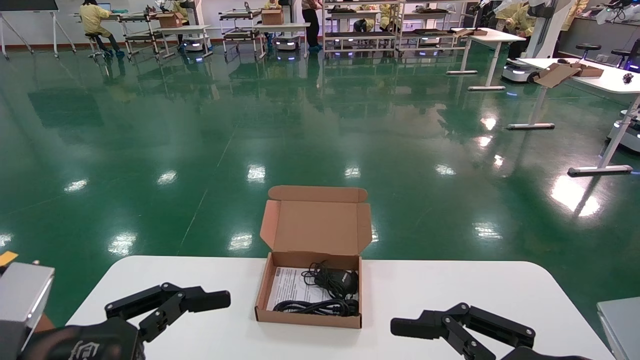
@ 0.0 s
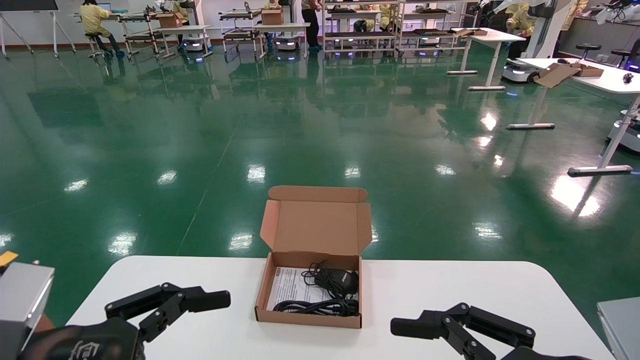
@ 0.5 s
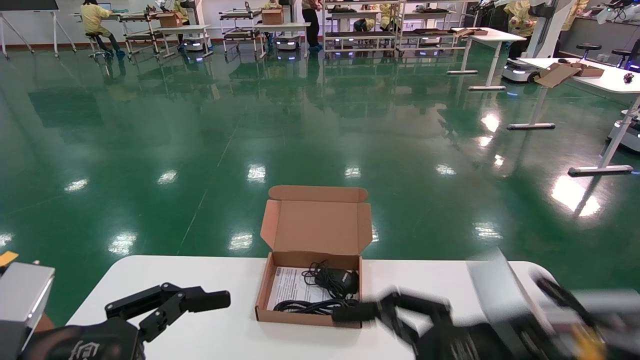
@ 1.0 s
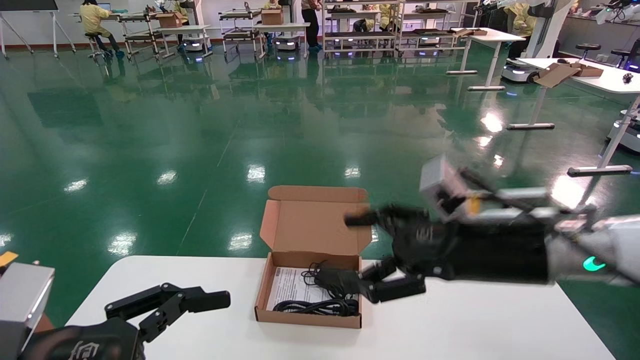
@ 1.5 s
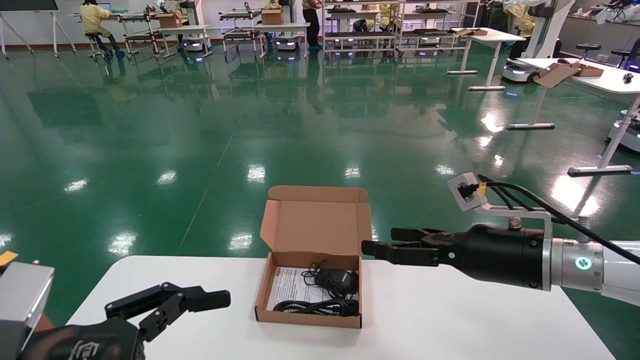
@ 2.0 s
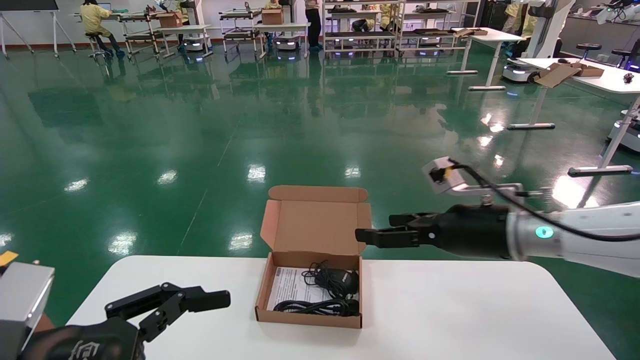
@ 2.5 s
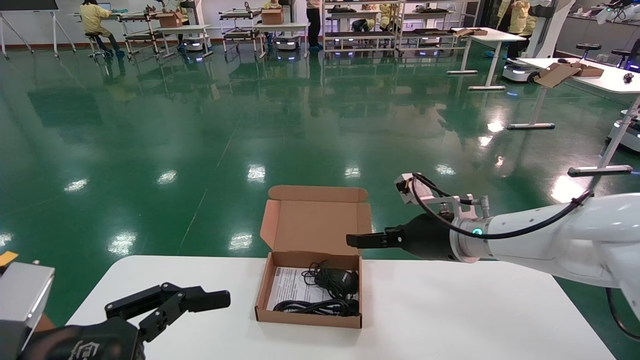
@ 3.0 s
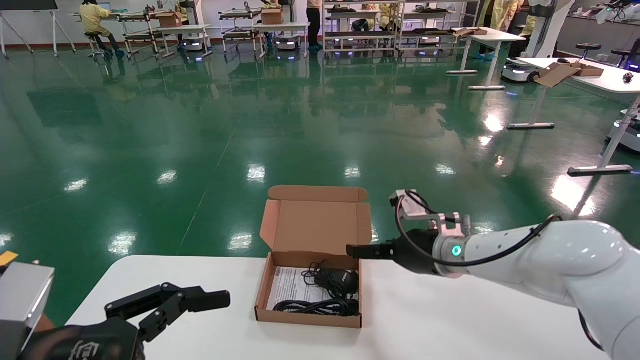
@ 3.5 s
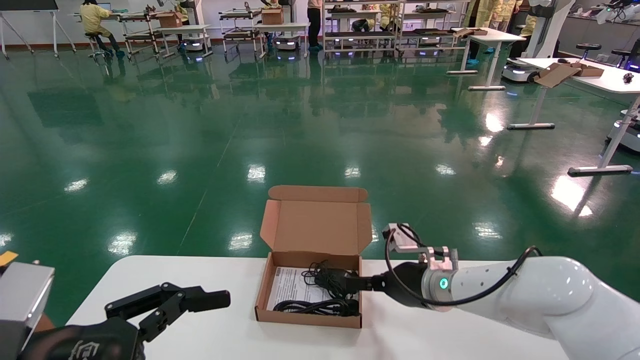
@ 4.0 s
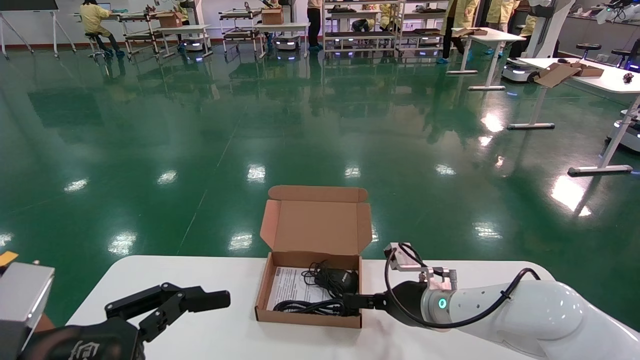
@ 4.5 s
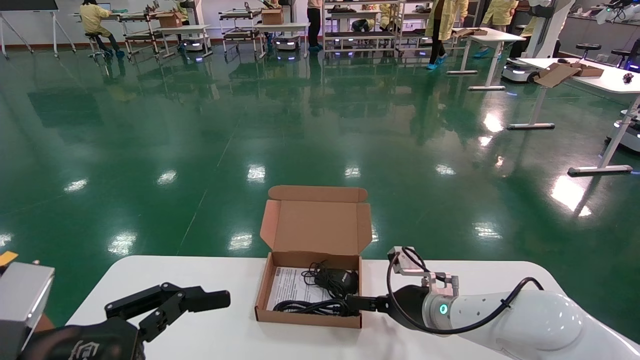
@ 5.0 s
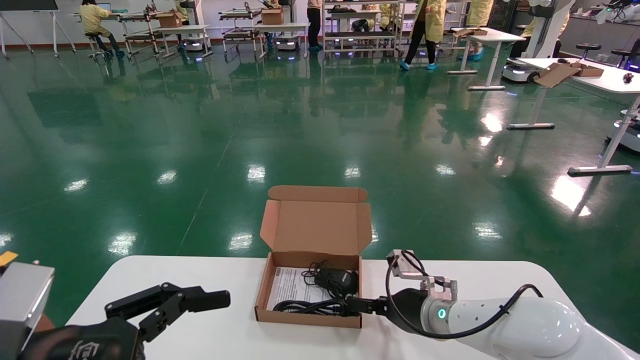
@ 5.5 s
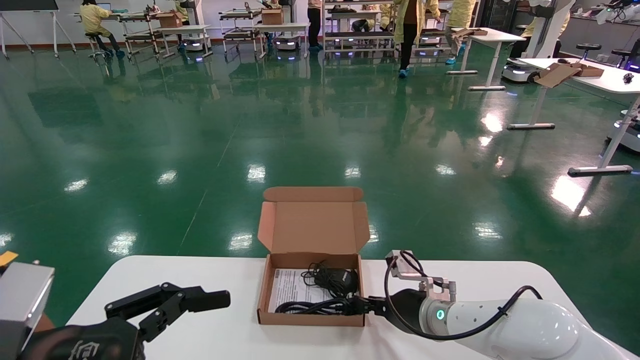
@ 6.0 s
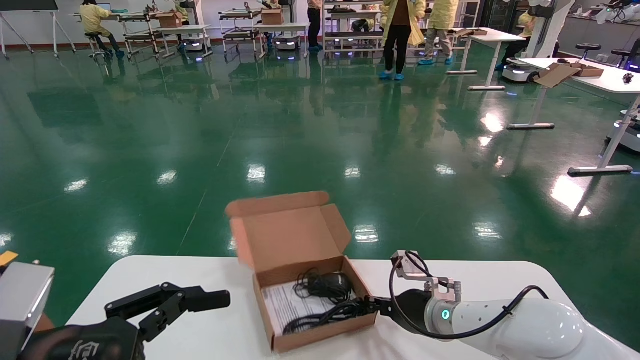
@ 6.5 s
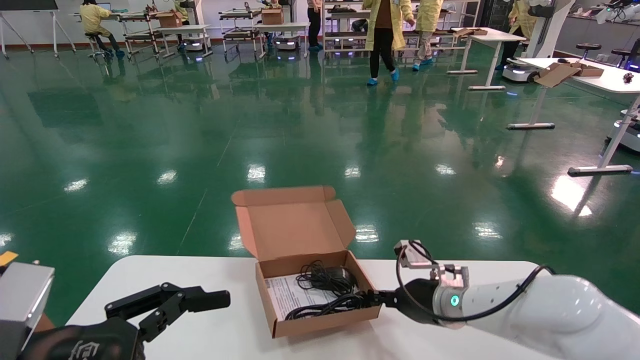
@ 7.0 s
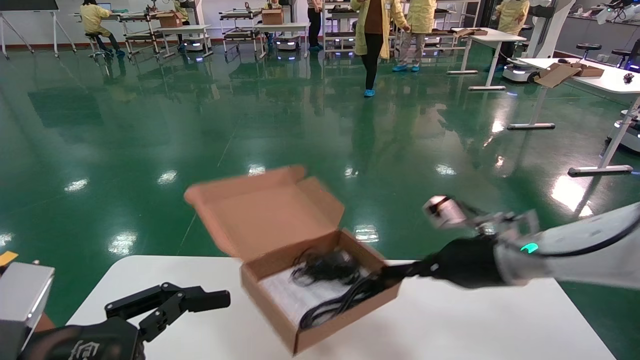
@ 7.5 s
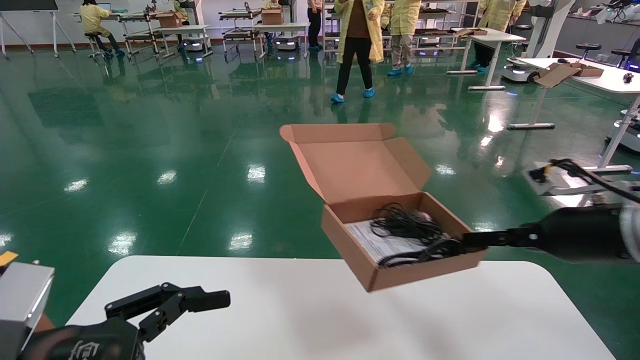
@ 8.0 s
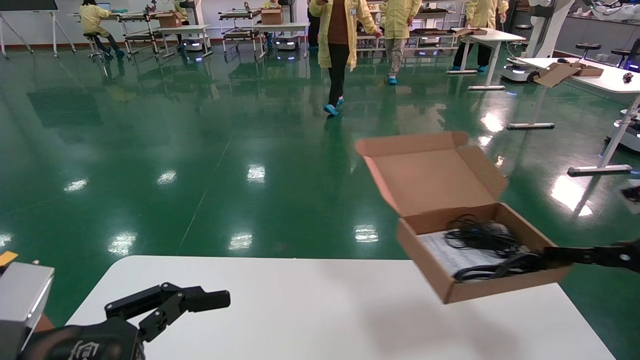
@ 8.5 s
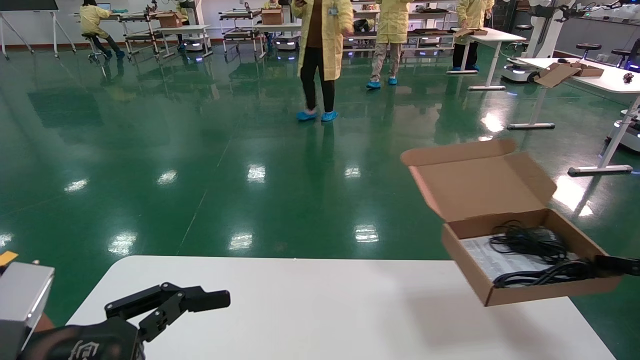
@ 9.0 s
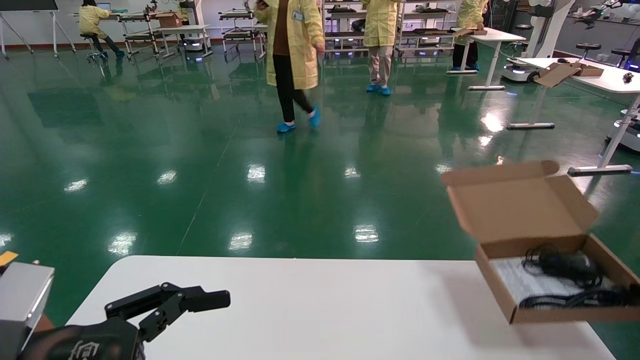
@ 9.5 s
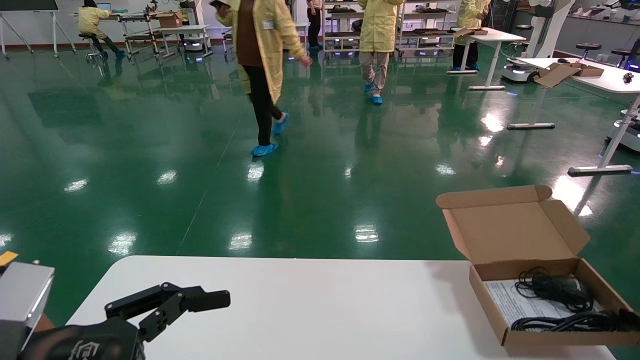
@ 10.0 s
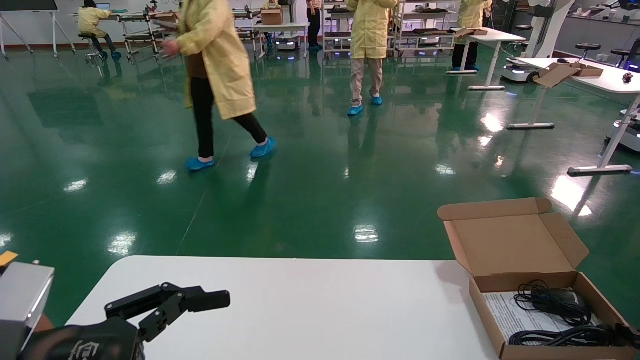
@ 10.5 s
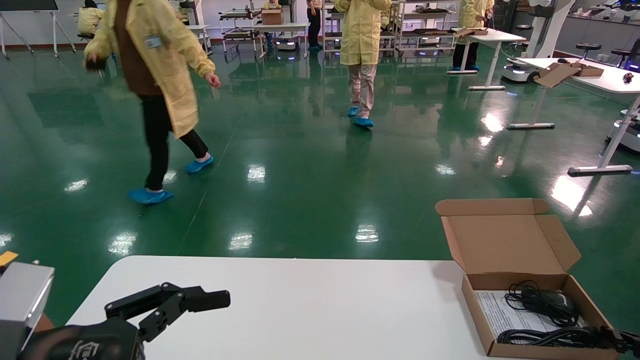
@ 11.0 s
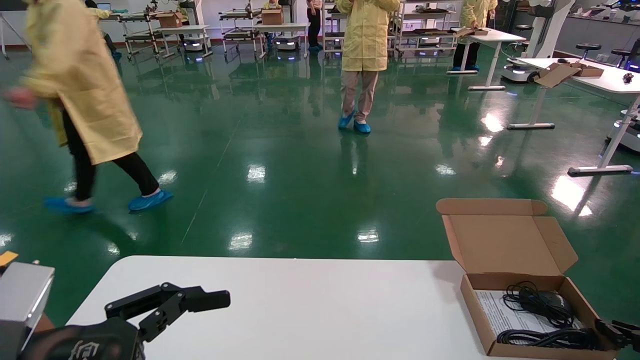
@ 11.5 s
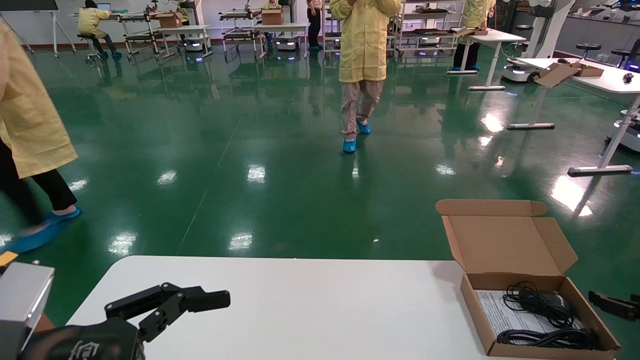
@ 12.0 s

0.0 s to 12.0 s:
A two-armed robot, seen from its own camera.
Task of the whole recording: move the position of the storage box with accessories on the table.
Step, 1.0 to 6.5 s: Grab and pick up the open mouse box from the accessory packaging area.
Step, 7.0 to 11.0 s: Place the open mouse box onto the operation table.
0.0 to 2.0 s: The right gripper goes some 20 cm forward.
2.0 to 4.0 s: The right gripper is displaced forward, to the left and downward by roughly 15 cm.
4.0 to 6.0 s: The right gripper shifts roughly 5 cm downward, and closes its fingers.
6.0 to 8.0 s: The right gripper shifts some 25 cm to the right, upward and backward, and closes.
8.0 to 10.0 s: The right gripper travels to the right and downward by approximately 25 cm.
10.0 to 12.0 s: The right gripper opens.

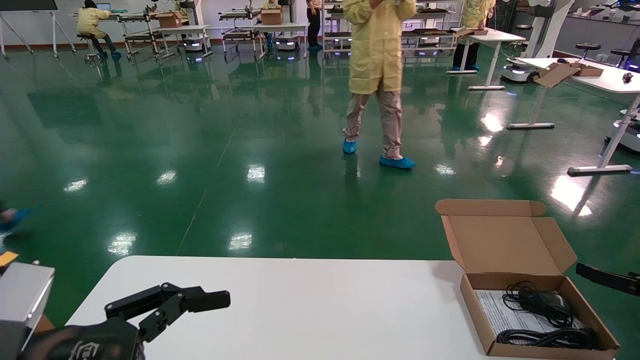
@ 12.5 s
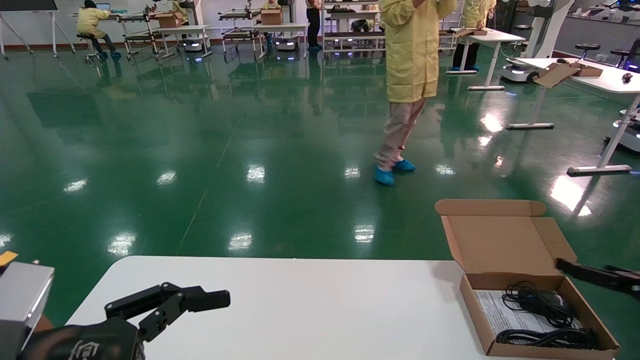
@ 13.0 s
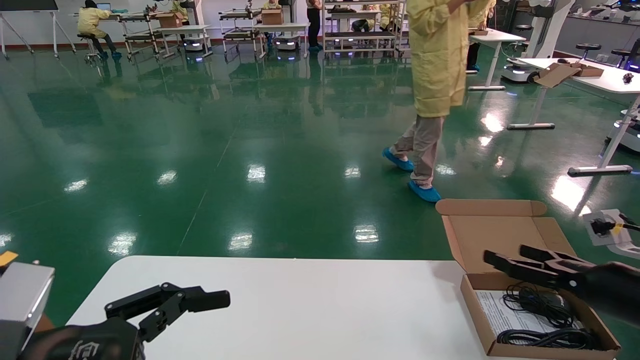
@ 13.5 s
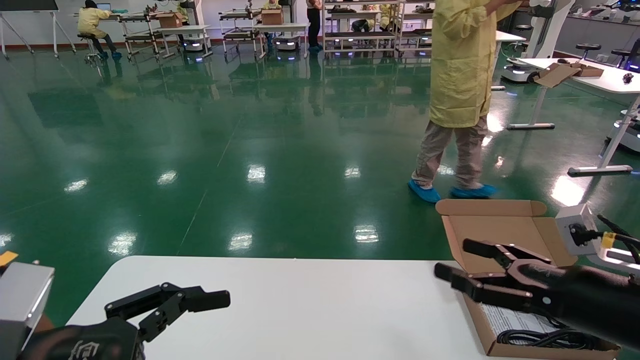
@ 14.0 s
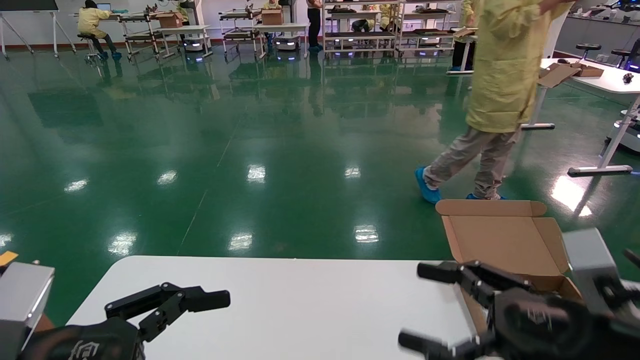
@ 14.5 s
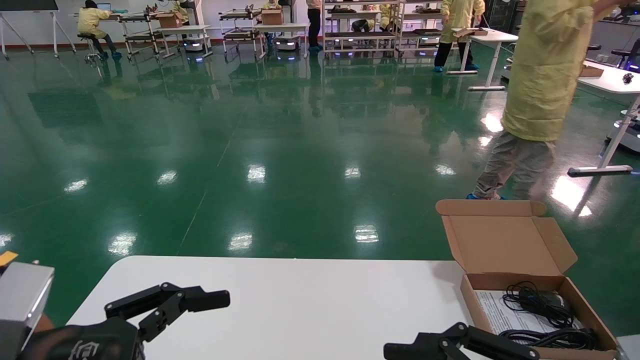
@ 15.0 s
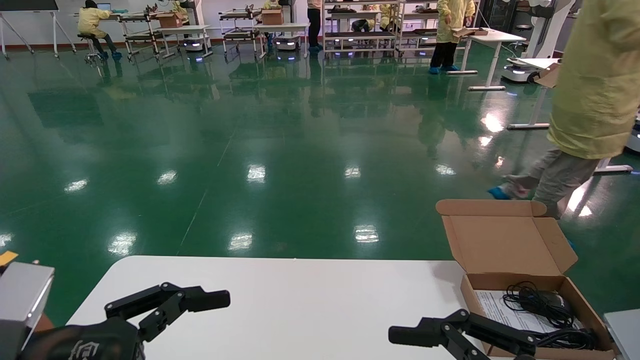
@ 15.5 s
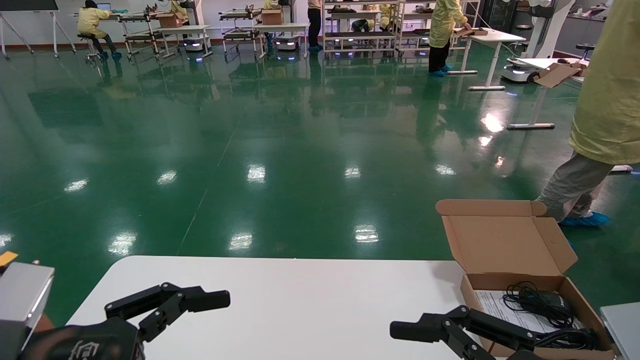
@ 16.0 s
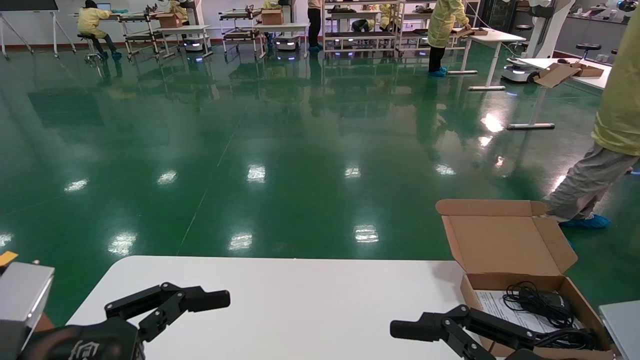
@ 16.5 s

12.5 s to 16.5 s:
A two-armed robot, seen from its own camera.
Task of the whole recording: move the position of the storage box with accessories on the table.
12.5 to 14.5 s: The right gripper heads to the left and backward, covering roughly 25 cm.
14.5 to 16.5 s: The right gripper shifts approximately 5 cm backward.
